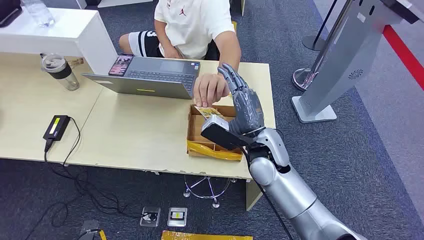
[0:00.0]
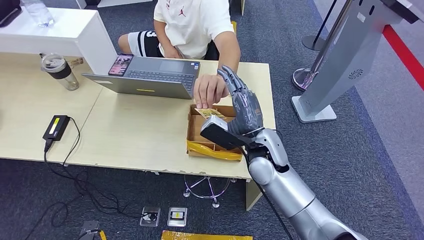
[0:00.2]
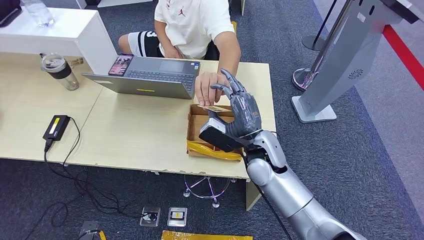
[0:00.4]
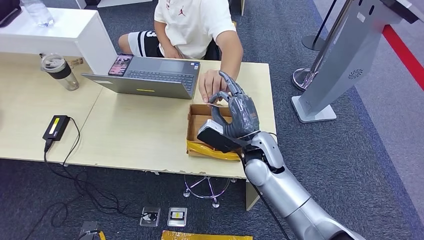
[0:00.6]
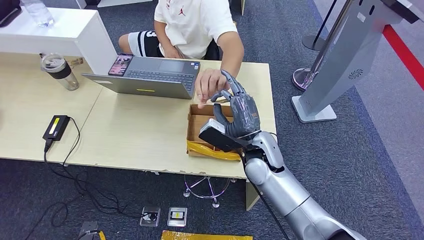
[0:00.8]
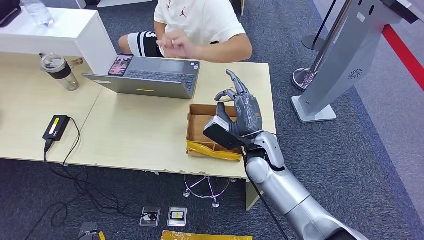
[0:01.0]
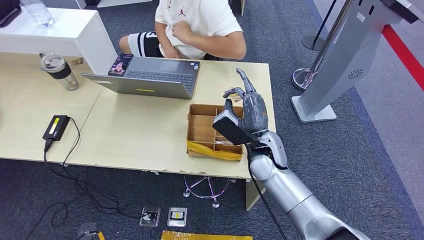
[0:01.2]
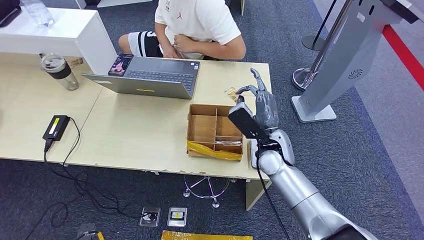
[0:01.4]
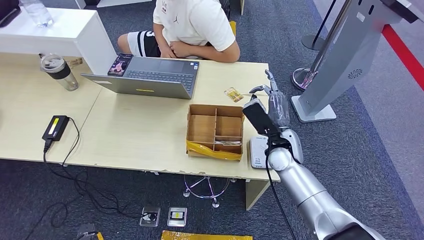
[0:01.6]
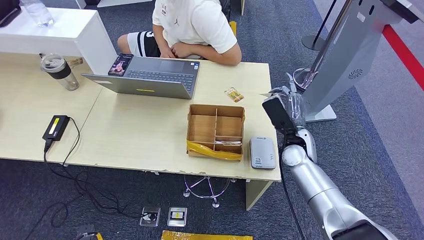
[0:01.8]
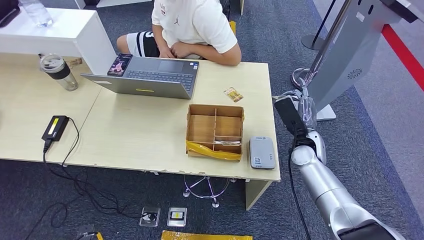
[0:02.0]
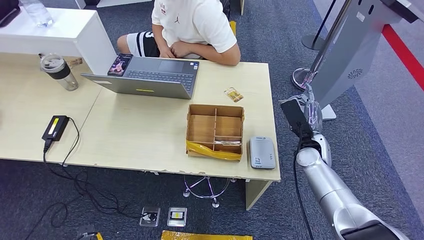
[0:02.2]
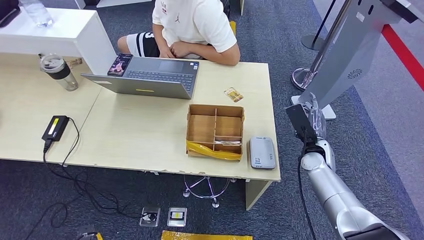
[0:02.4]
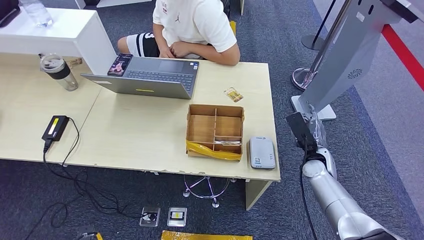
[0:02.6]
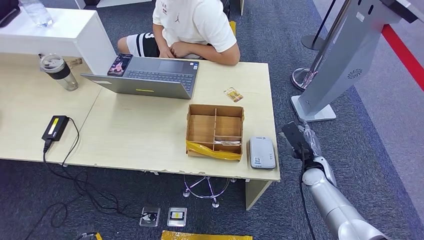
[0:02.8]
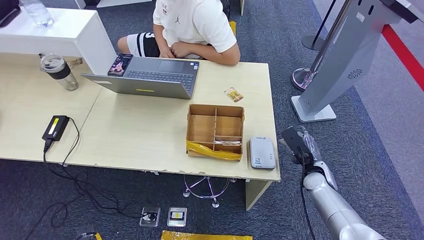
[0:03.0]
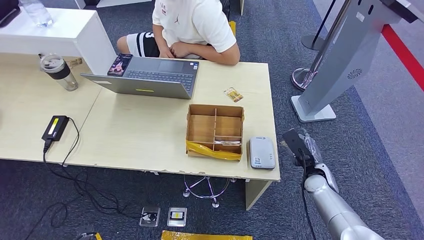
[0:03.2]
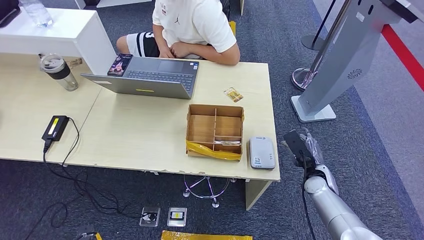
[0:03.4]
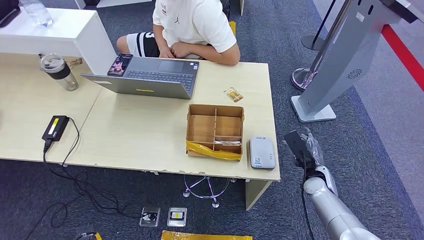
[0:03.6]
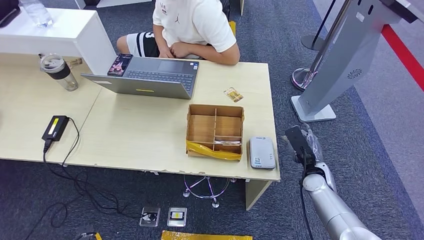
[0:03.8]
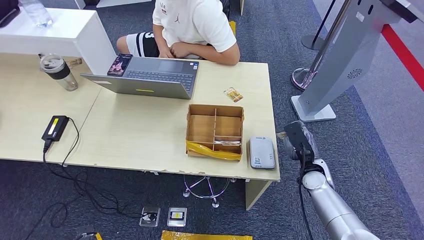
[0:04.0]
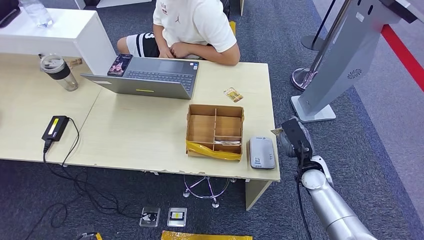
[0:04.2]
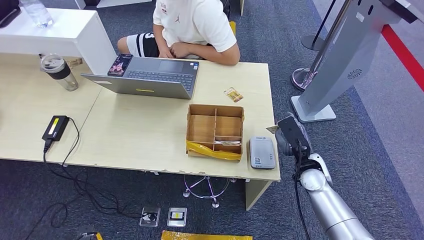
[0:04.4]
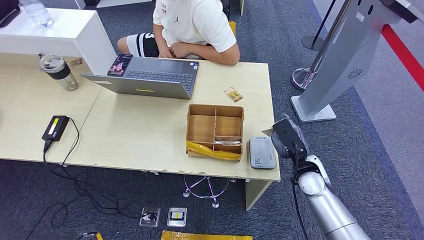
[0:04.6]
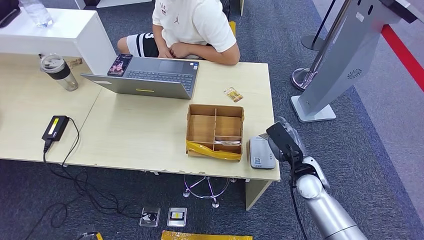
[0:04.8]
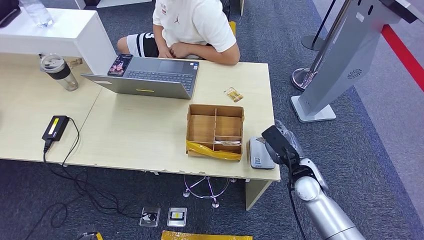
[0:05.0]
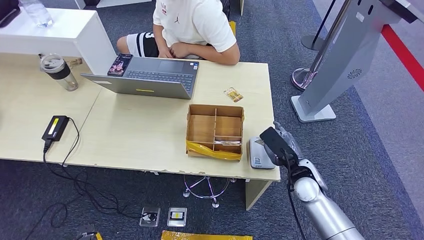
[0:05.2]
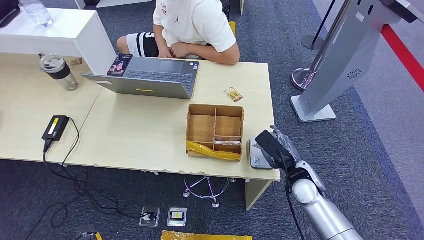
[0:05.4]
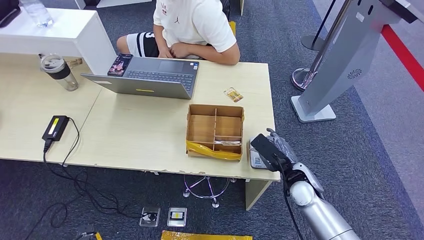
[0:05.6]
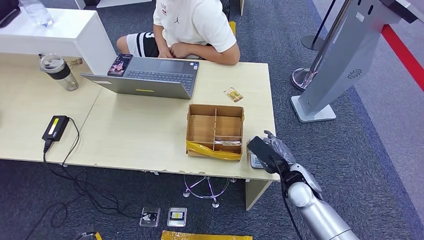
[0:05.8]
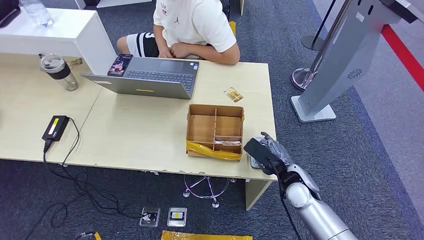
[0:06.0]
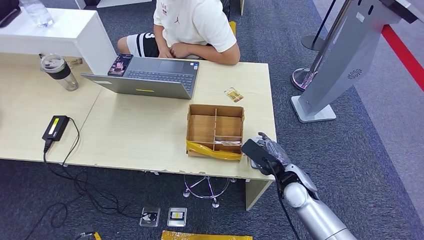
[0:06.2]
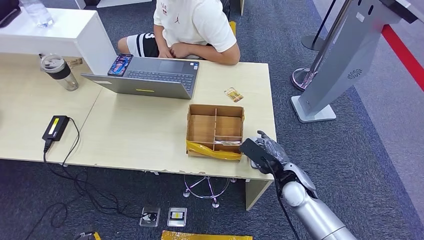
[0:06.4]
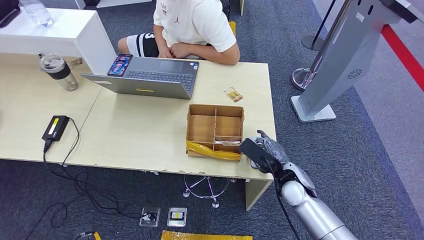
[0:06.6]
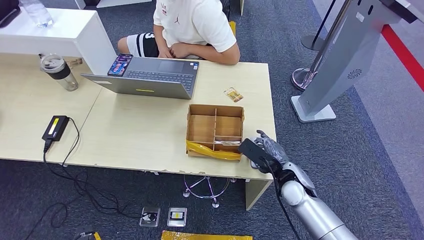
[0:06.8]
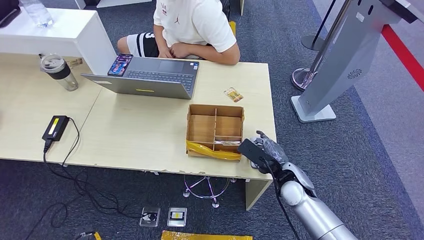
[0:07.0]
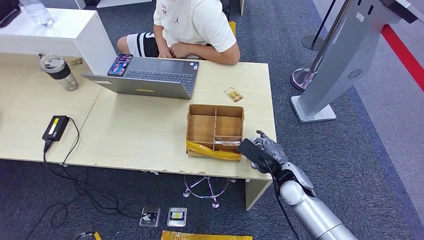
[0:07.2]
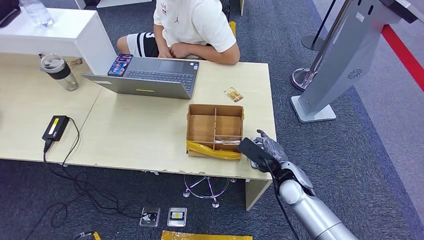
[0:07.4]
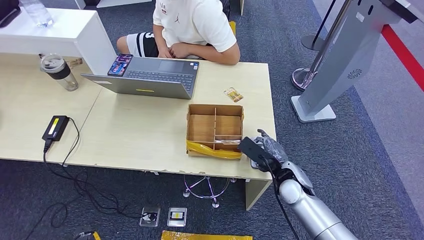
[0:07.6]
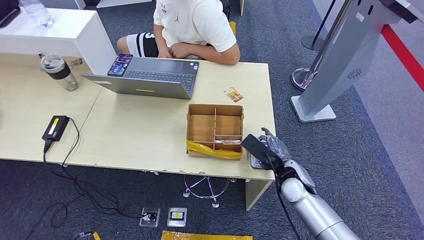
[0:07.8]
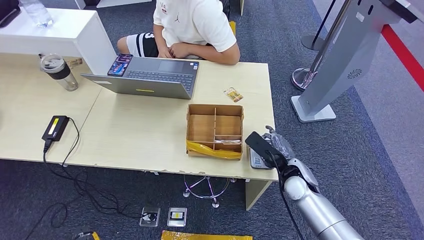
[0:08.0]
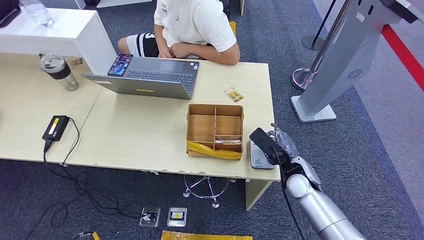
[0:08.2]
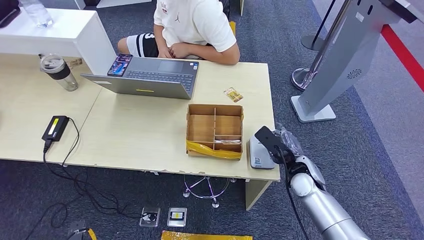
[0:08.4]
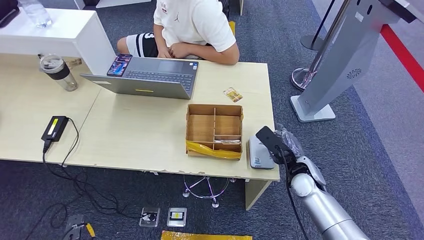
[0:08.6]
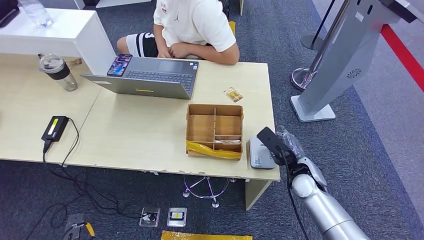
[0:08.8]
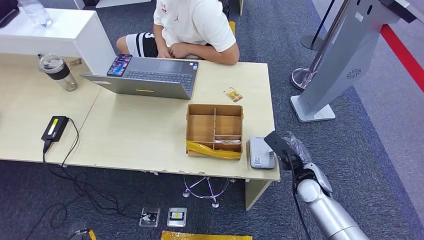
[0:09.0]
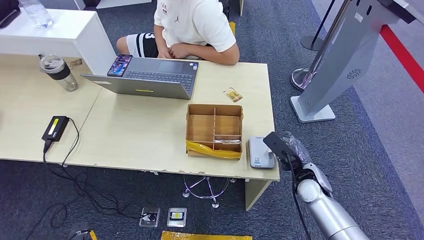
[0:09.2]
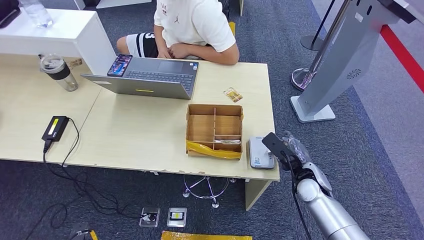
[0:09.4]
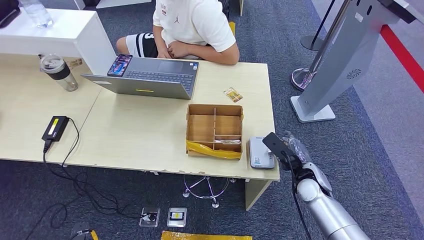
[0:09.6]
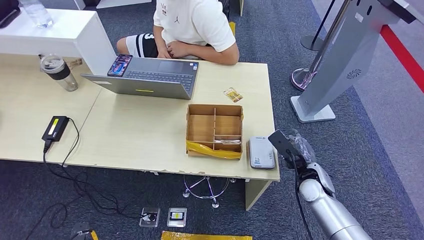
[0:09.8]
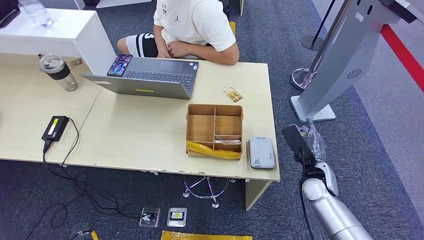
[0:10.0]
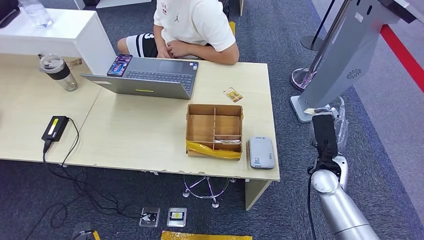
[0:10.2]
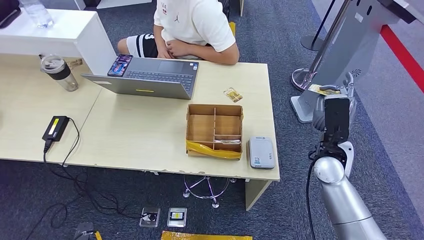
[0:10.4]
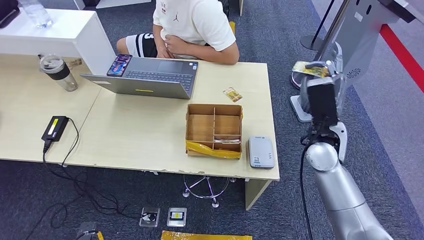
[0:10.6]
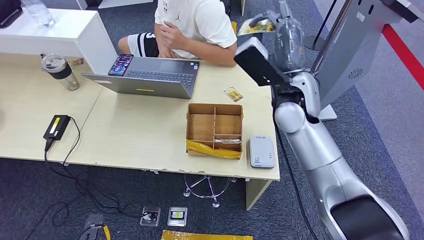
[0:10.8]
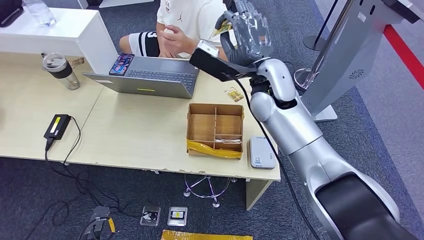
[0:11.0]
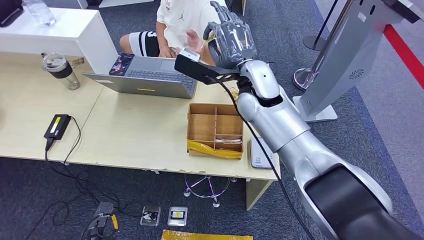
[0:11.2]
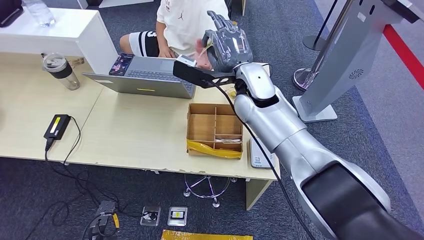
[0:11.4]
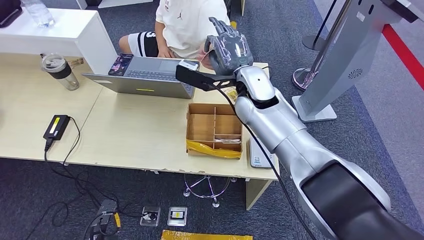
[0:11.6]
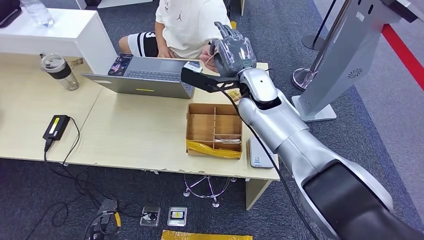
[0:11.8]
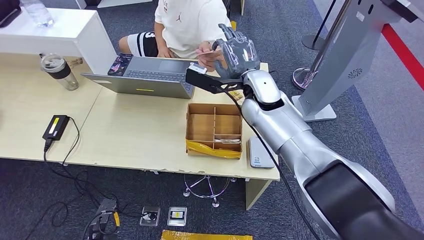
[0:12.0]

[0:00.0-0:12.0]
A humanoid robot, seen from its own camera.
Step, 0:00.0 to 0:01.4: Take the ID card from the person's hand.
Step, 0:01.6 to 0:06.2: Place the ID card on the card reader.
0:01.6 to 0:03.0: The right hand moves to the right, downward and backward, roughly 15 cm.
0:03.0 to 0:04.4: The right hand shifts approximately 5 cm upward.
0:06.0 to 0:07.6: The hands move only a little.
0:07.6 to 0:09.0: The right hand heads to the right, covering roughly 5 cm.
0:09.0 to 0:10.4: The right hand goes some 10 cm upward.

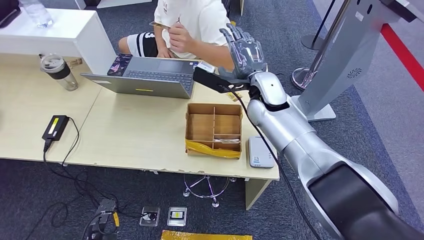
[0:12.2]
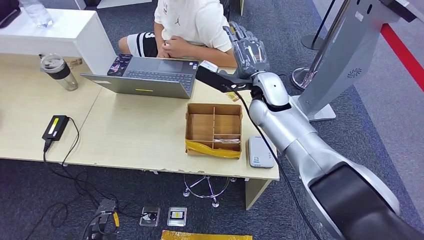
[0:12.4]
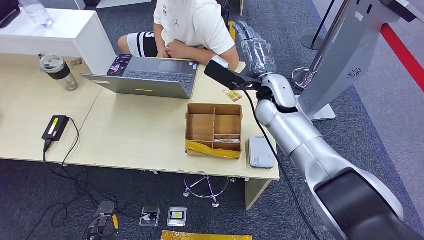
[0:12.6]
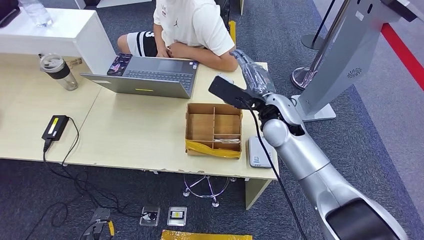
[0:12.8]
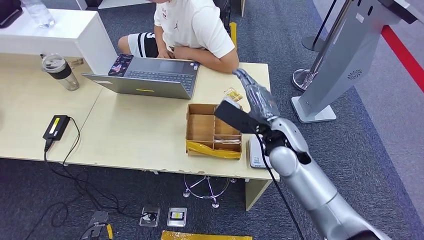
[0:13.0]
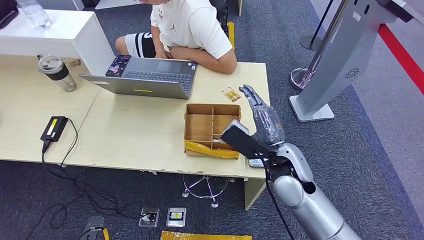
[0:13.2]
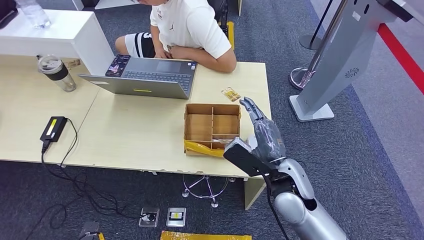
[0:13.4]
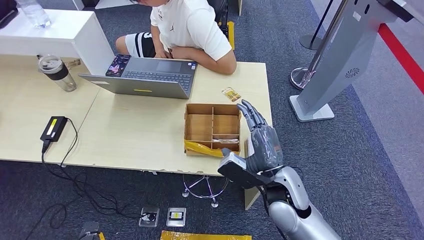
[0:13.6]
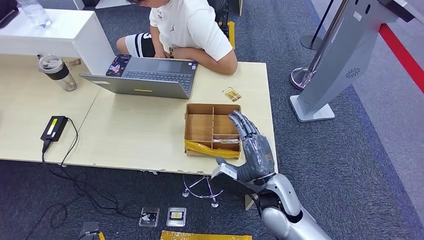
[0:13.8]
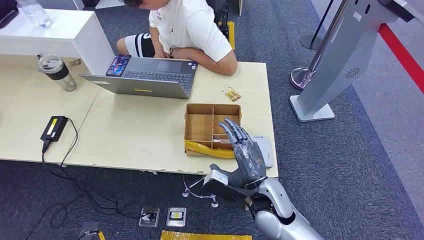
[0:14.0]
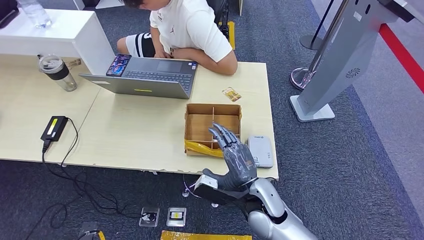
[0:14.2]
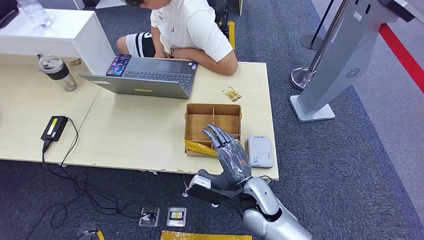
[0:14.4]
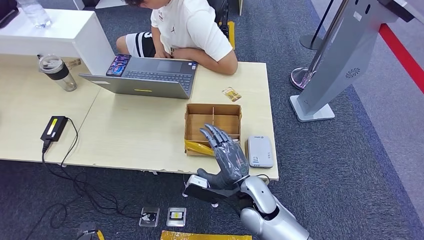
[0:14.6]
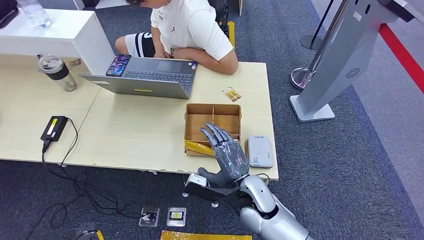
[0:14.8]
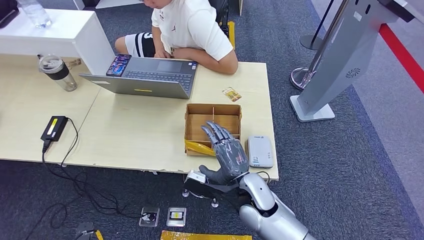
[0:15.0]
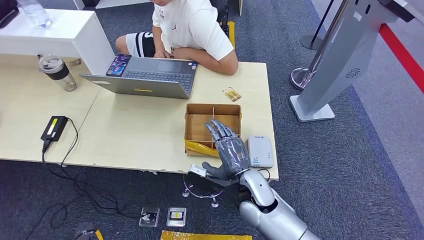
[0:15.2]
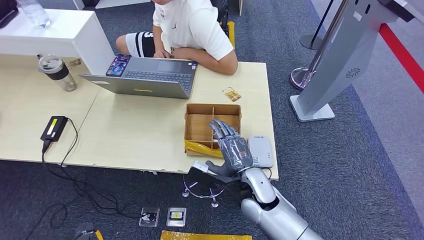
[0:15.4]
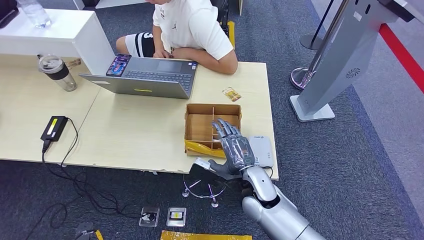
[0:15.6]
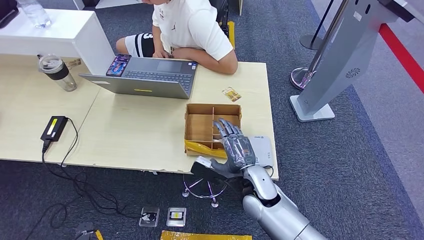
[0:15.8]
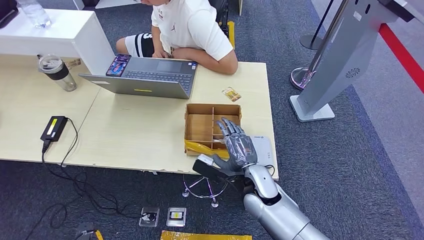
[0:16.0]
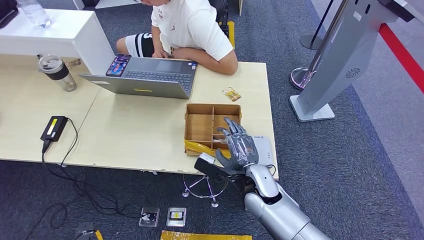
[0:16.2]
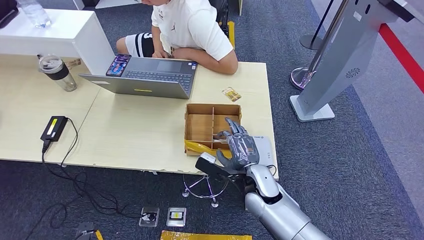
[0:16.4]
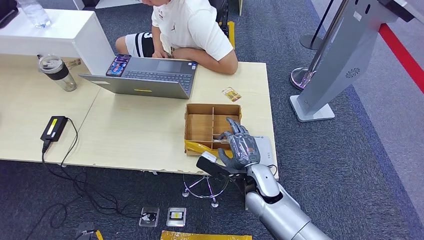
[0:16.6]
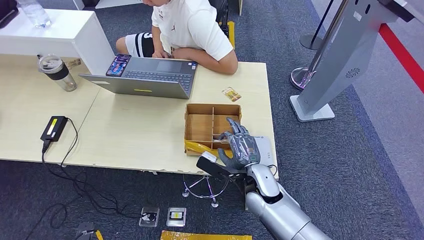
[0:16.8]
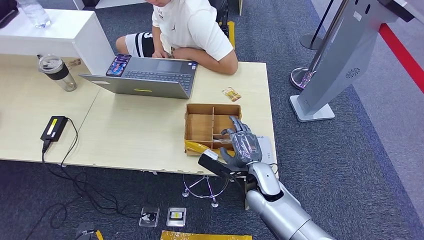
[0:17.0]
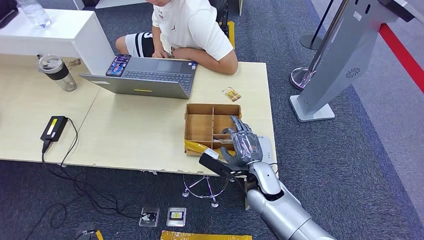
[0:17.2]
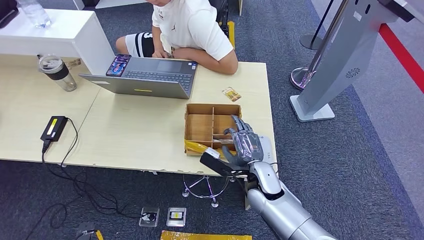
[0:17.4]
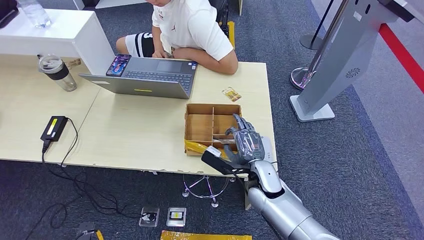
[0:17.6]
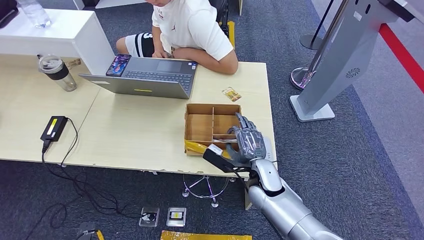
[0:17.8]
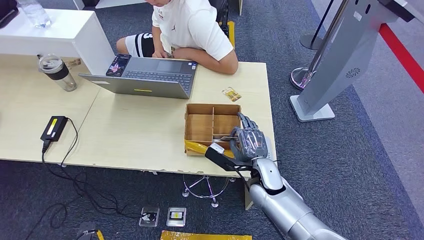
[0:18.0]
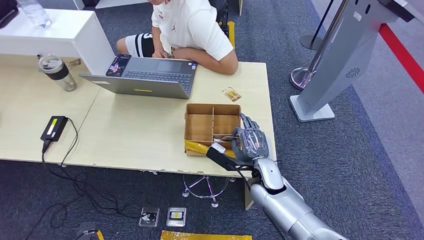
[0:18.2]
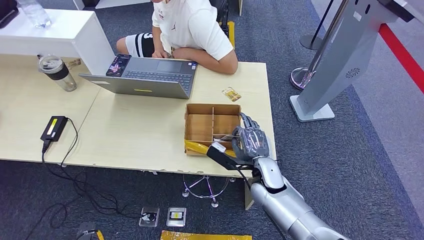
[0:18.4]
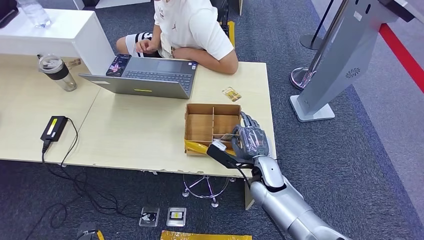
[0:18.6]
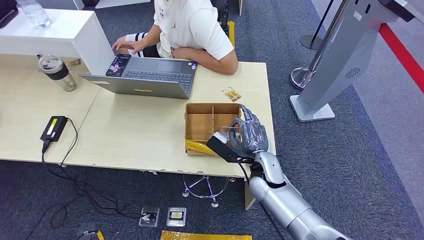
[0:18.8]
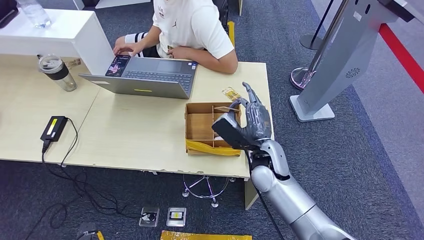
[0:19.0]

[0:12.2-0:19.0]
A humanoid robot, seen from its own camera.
0:13.6 to 0:15.0: The right hand goes some 10 cm to the left and downward.
0:15.0 to 0:17.6: The hands move only a little.
0:17.6 to 0:19.0: The right hand travels upward by approximately 5 cm.
